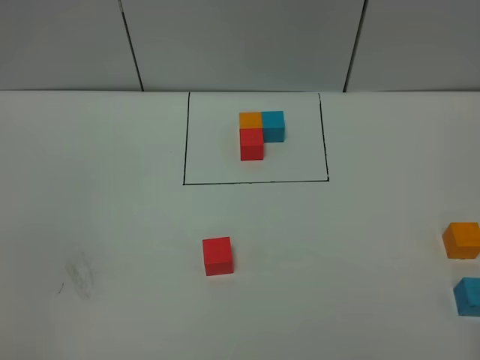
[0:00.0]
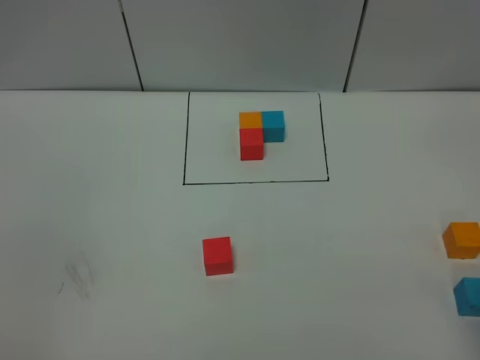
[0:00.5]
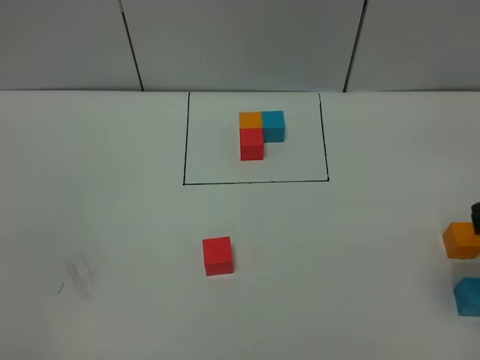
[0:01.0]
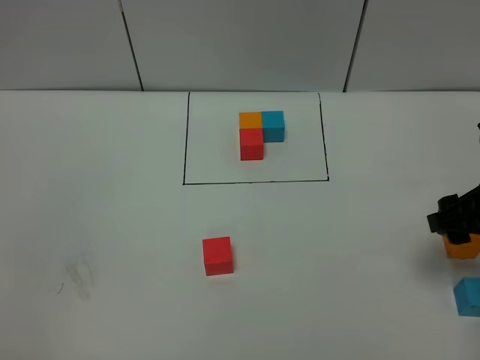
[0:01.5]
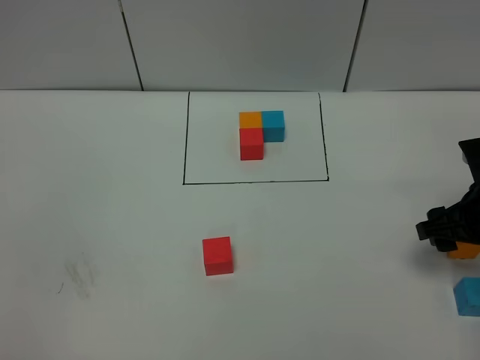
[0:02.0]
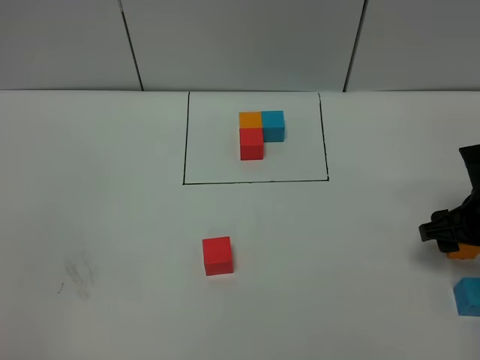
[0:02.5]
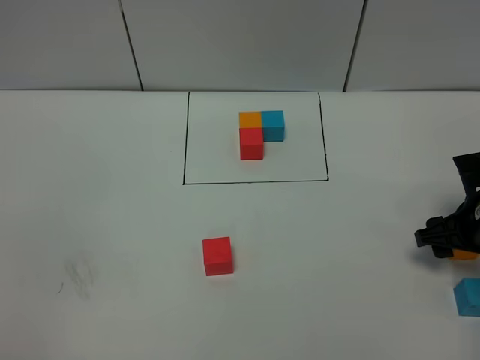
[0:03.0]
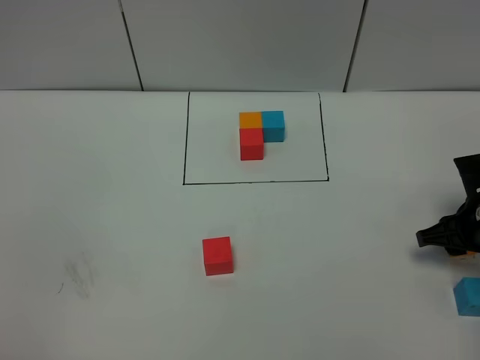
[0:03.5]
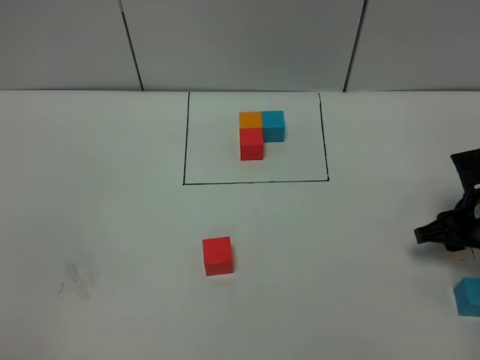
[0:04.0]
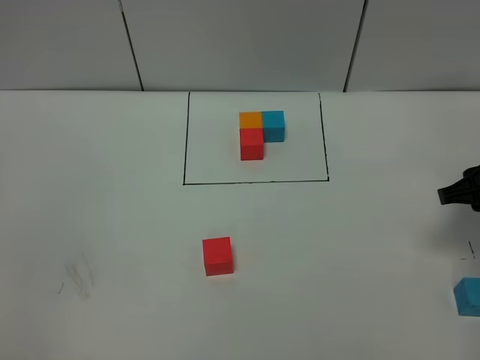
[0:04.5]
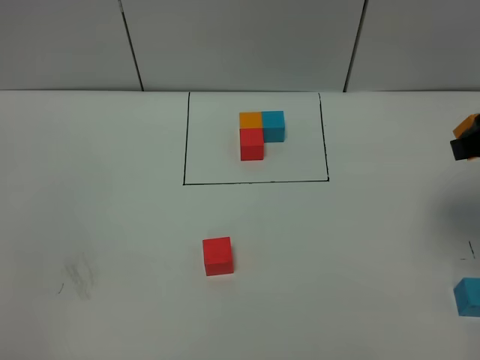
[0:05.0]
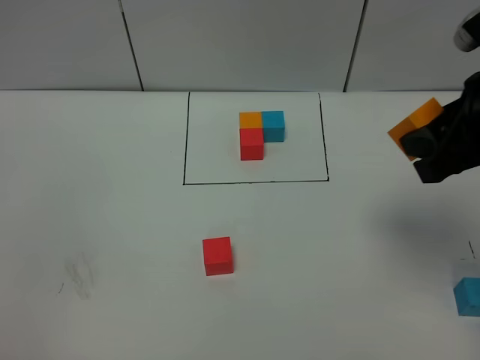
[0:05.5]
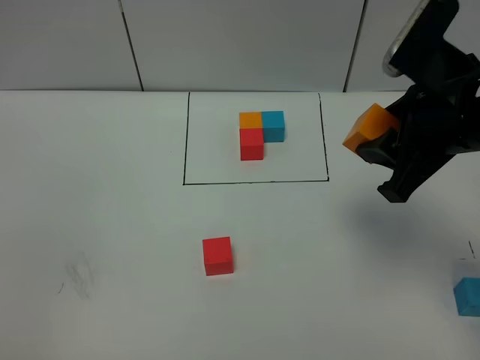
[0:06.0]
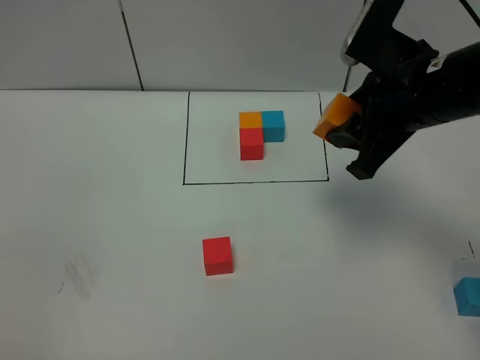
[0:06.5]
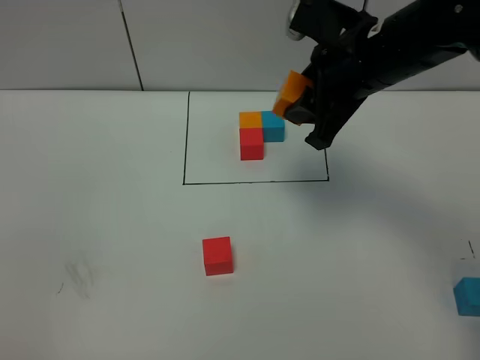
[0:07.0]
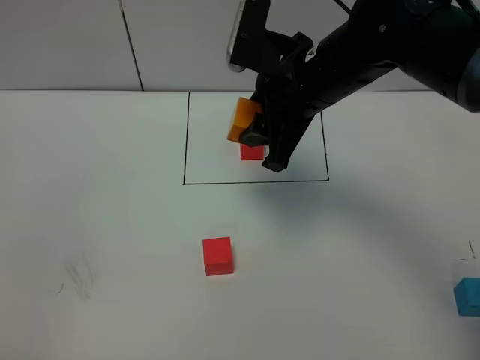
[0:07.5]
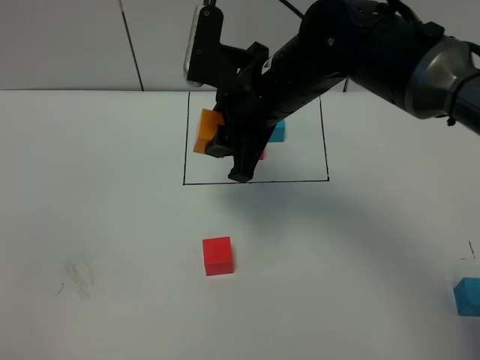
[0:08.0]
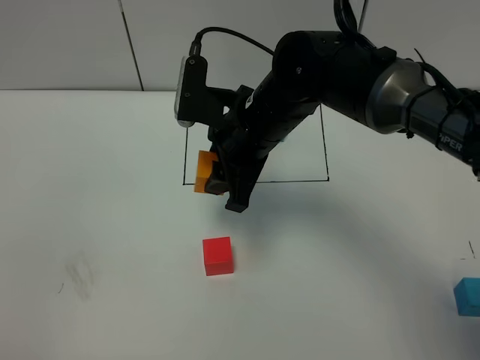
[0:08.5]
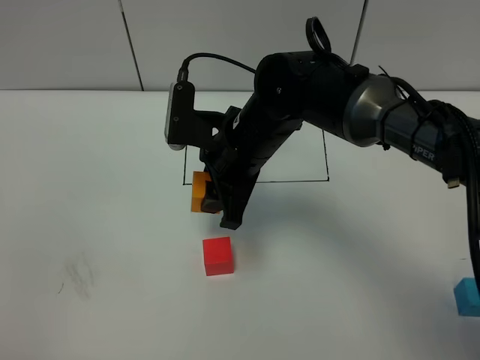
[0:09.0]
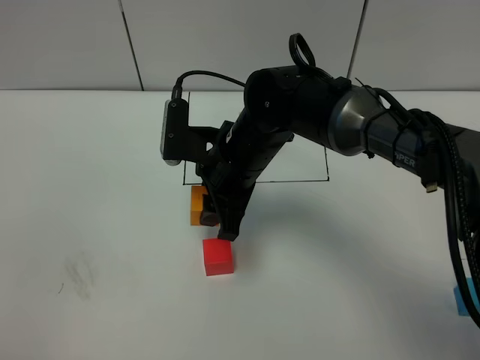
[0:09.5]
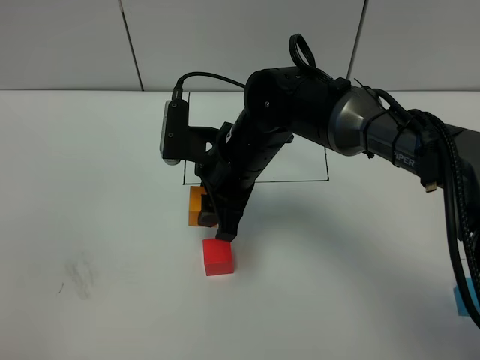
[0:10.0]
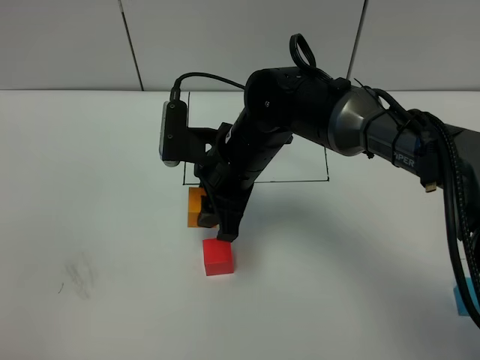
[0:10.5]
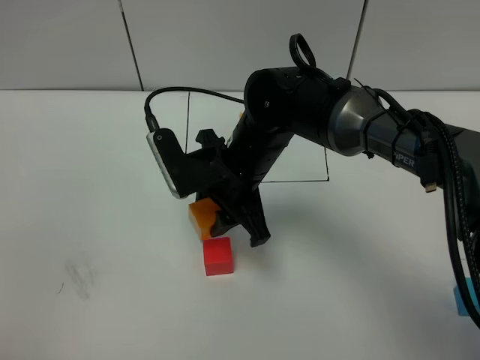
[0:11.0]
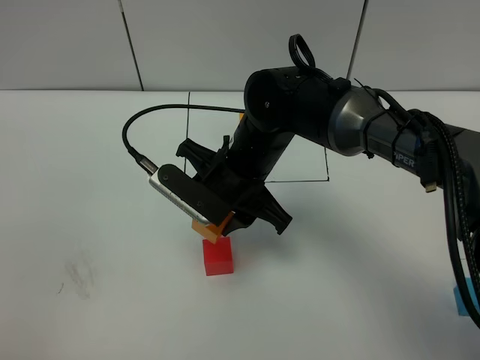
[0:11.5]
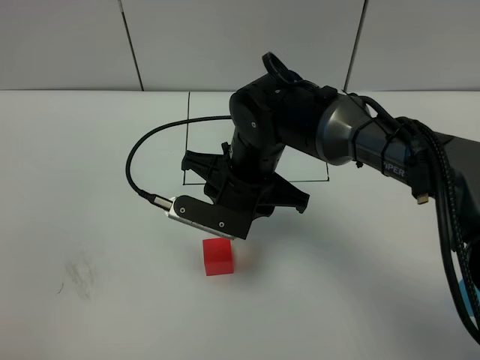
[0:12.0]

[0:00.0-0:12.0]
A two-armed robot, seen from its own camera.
Task of the whole recording: According to the building block template in front, assemble the scattered blocks together.
0:00.0 to 0:02.0: The right gripper heads forward and downward, covering approximately 30 cm.
0:02.0 to 0:04.0: The right gripper ends up about 5 cm from where it was.
0:04.0 to 0:06.0: The right gripper heads upward and to the left, covering some 25 cm.
0:06.0 to 0:08.0: The right gripper is displaced to the left and forward by about 20 cm.
0:08.0 to 0:10.0: The right gripper goes approximately 10 cm downward.

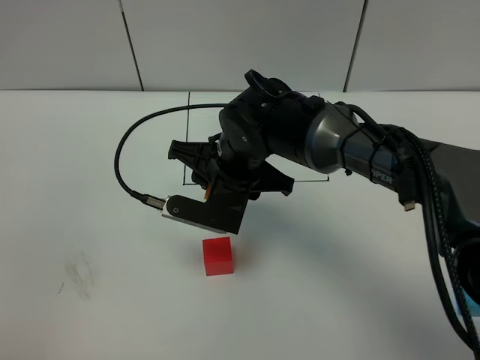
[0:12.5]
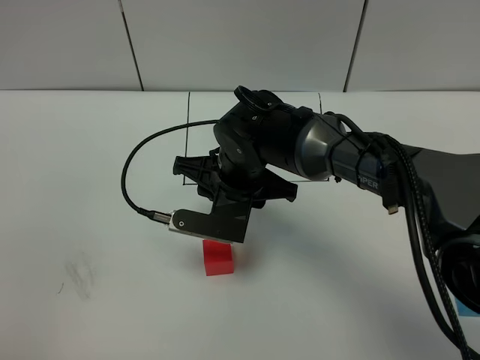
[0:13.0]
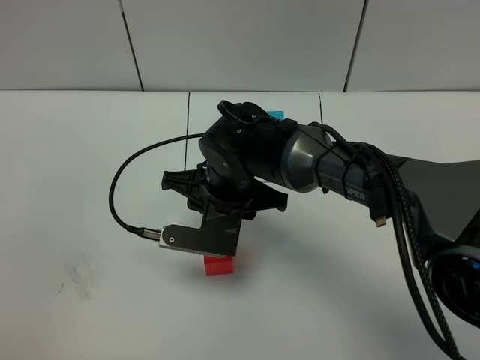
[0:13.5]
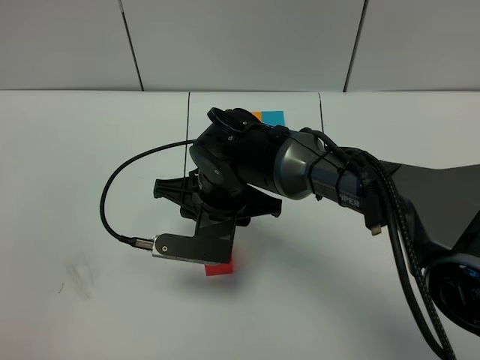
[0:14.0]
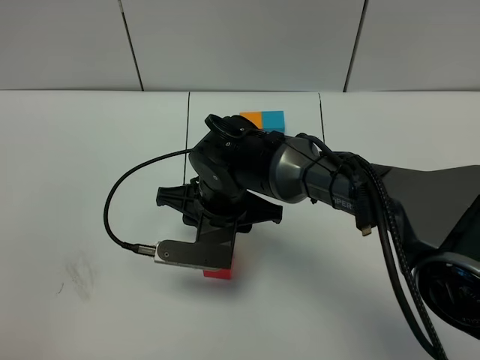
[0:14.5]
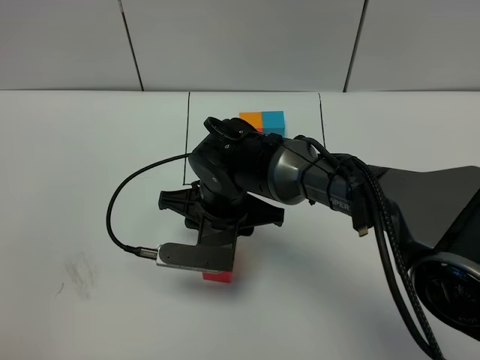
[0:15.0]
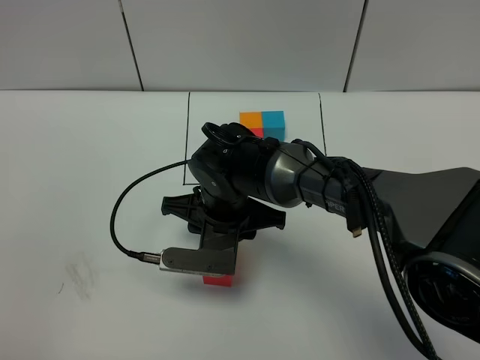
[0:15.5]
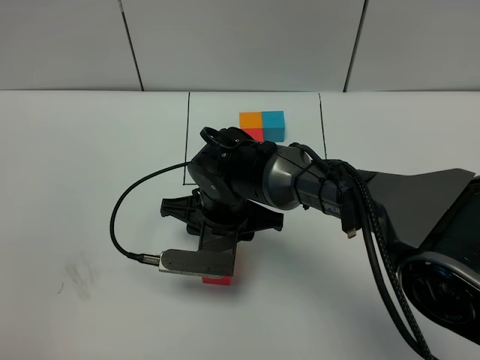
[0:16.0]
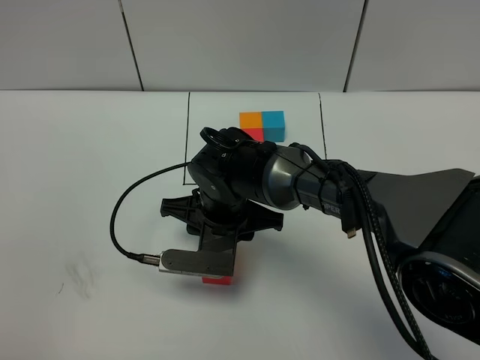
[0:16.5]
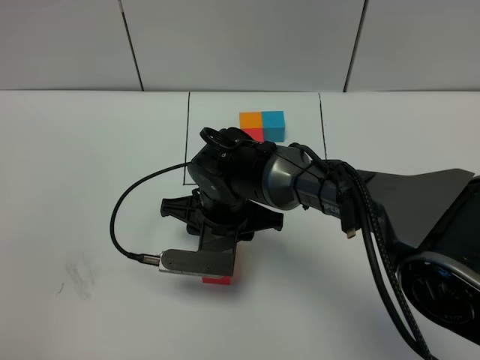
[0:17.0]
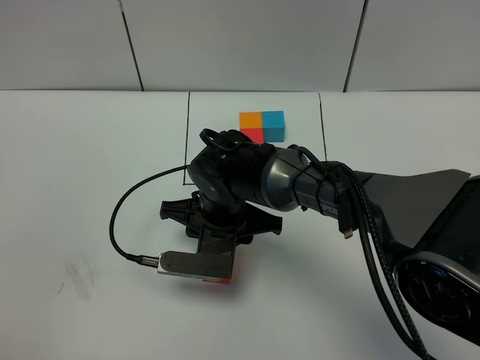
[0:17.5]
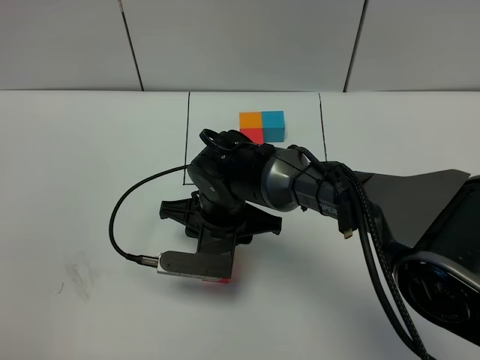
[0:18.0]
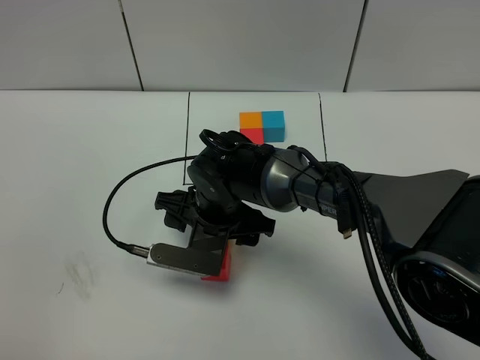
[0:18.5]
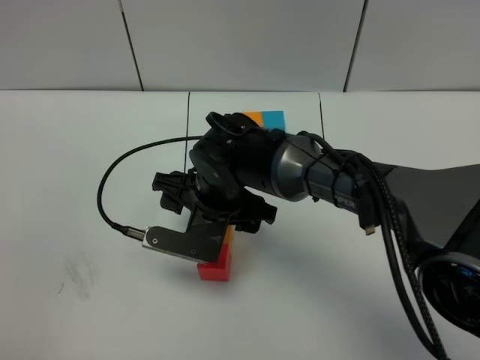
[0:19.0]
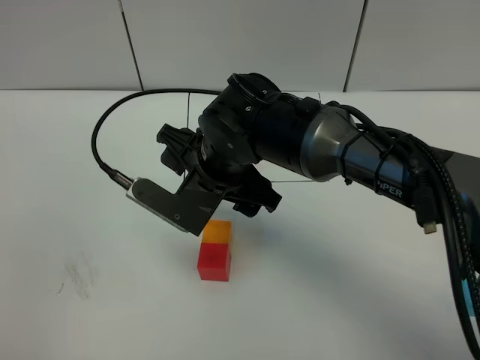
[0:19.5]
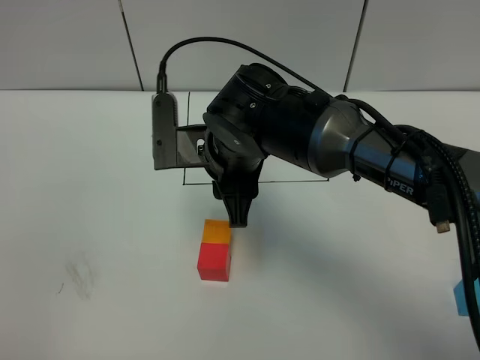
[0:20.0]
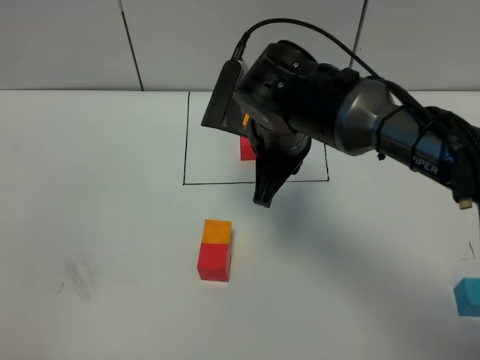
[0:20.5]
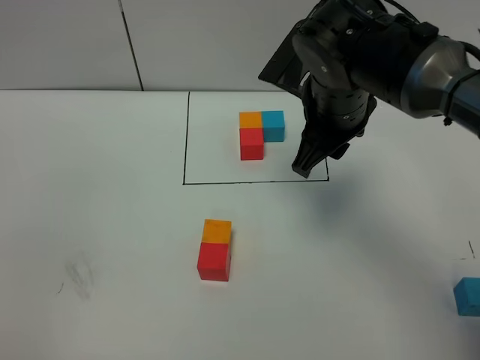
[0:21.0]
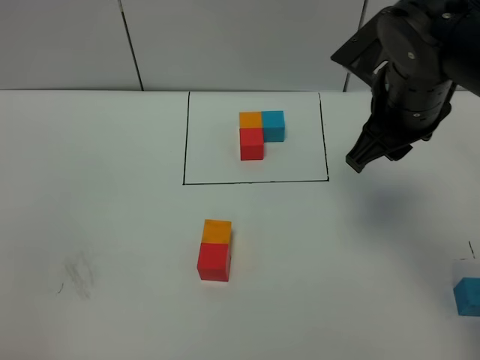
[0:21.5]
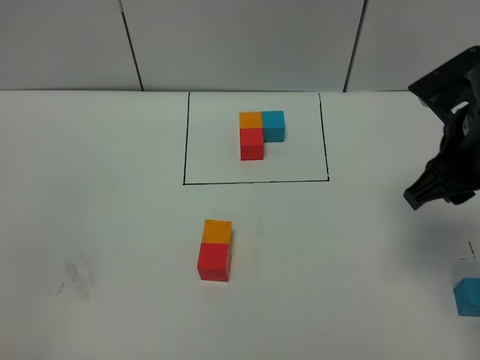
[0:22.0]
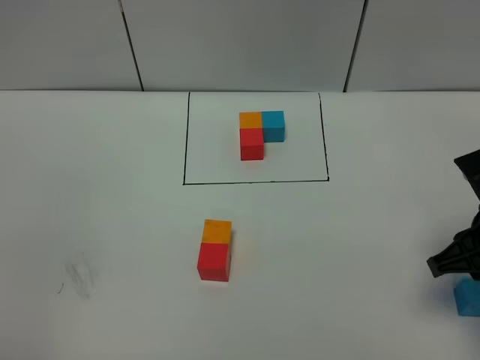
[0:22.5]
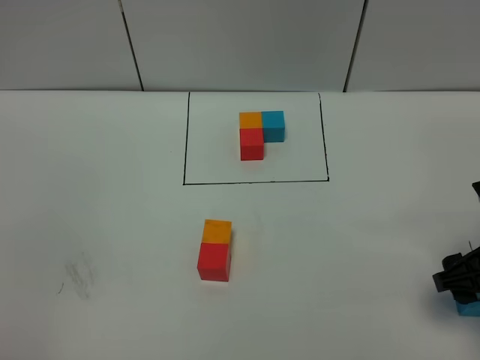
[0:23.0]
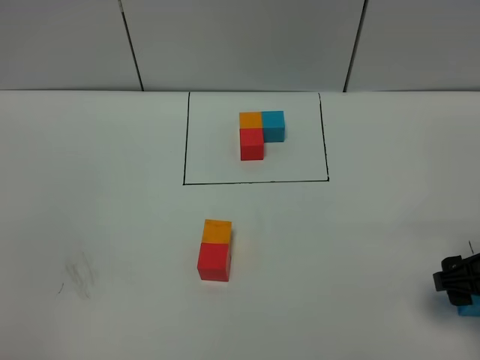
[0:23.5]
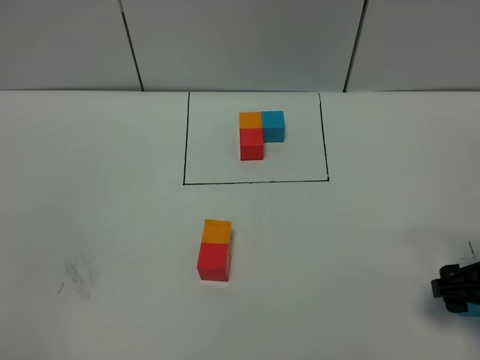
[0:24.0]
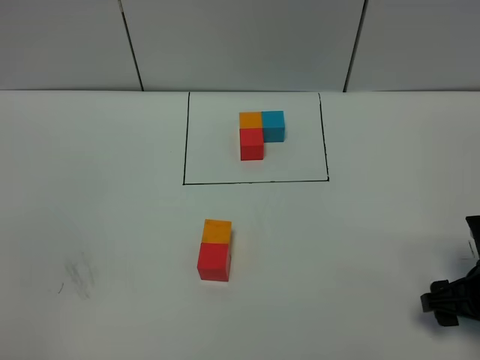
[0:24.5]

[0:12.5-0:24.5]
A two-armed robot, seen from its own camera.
Task of the whole recording: According to the building block template in front, assemble the scattered blocks together.
Step, 0:12.5 to 0:19.0: Put the orange cube on the behind of the red cube.
0:14.5 to 0:16.5: The grippers stay close to where they were, moving slightly.
0:16.5 to 0:18.5: The right gripper opens up.
0:18.5 to 0:20.5: The right gripper goes some 15 cm upward and to the right, and closes.
0:20.5 to 0:22.5: The right gripper shifts approximately 25 cm to the right and backward.
0:22.5 to 0:24.5: The right gripper moves downward, approximately 10 cm, and opens.

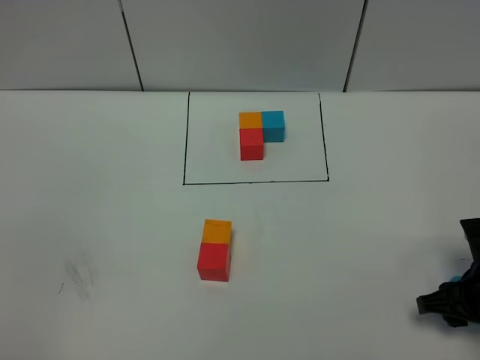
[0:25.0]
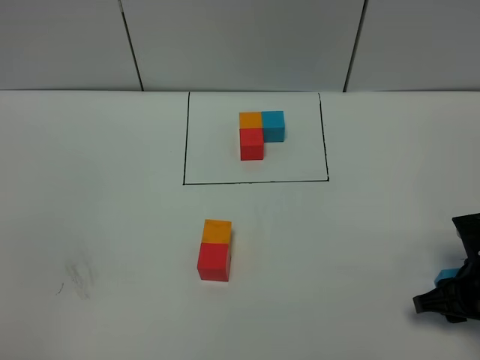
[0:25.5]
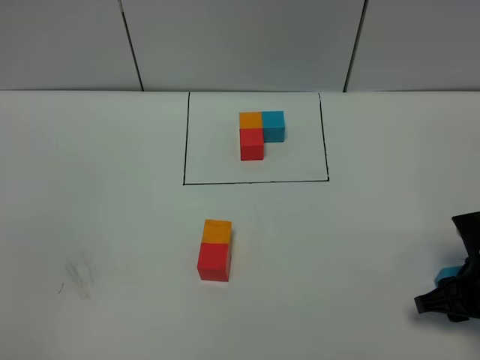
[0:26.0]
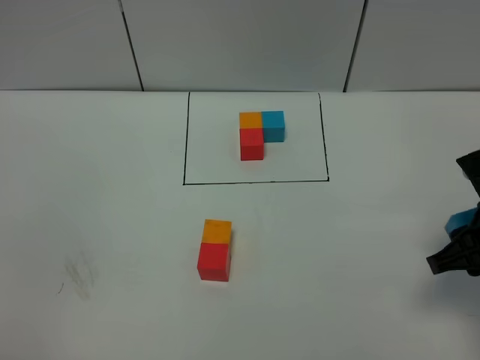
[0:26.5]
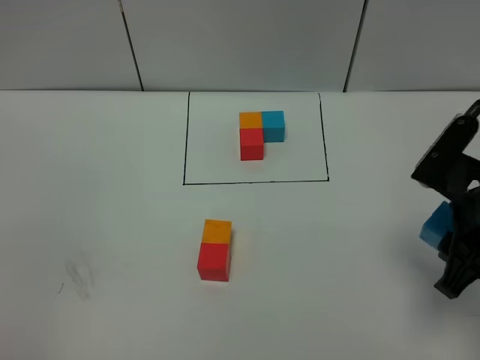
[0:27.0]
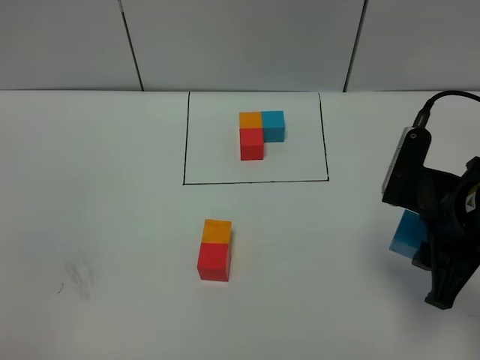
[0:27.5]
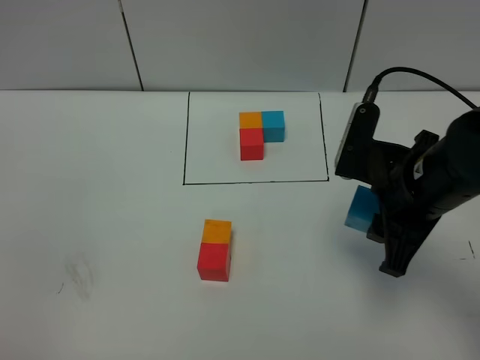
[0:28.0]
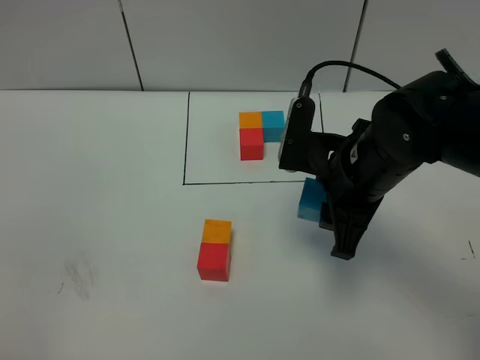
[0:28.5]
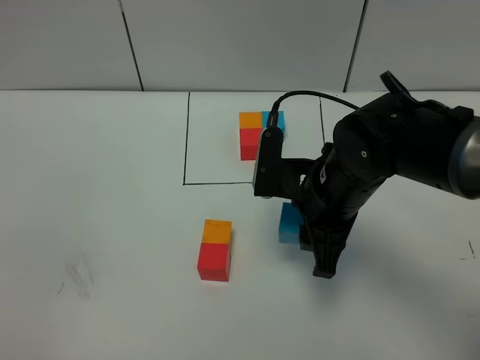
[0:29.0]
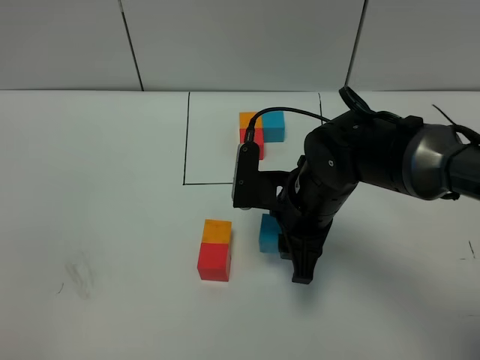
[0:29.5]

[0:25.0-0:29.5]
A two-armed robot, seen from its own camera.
Task of the whole recording: According to the building block template in front, assemble the scattered blocks together.
0:25.0 to 0:27.0: The right gripper is displaced upward by roughly 15 cm.
0:27.0 to 0:29.5: The right gripper is displaced to the left, forward and downward by some 20 cm.
